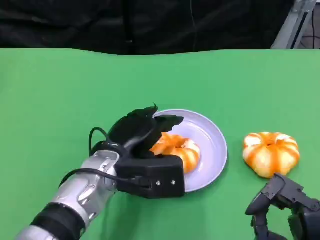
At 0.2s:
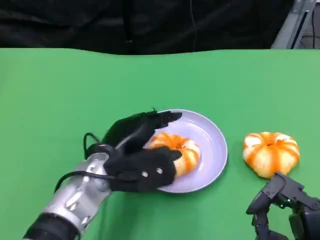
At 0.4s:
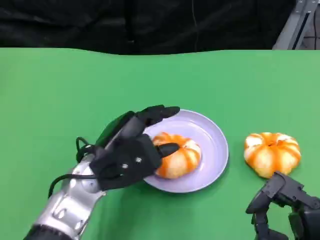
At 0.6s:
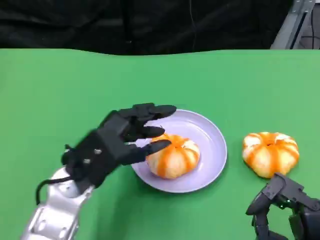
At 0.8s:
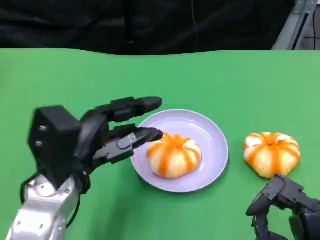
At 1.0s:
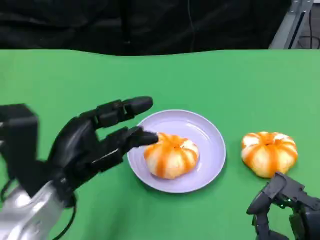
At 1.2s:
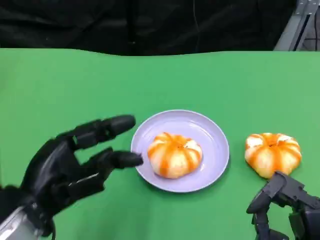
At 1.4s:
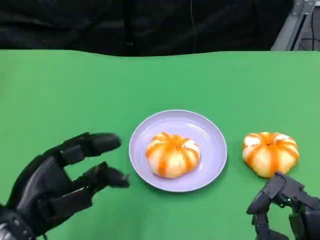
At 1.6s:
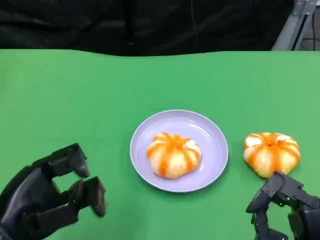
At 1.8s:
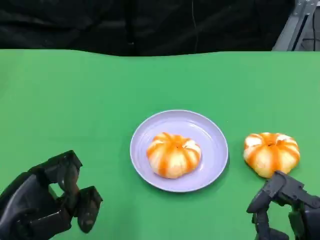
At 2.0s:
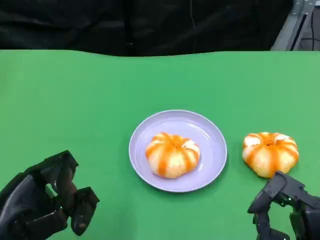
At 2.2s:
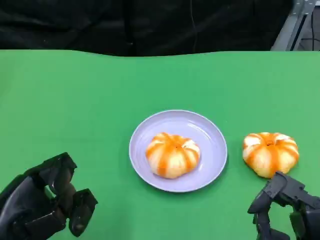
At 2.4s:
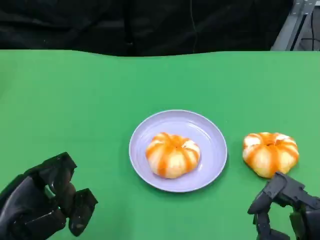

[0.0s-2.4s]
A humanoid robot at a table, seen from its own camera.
Task of the whole recording: Grasp the bread from the table and place it into the plate.
0.0s to 1.2s: The left hand moves to the left and backward, roughly 15 cm.
1.2s to 2.4s: The left hand changes place by some 5 cm.
